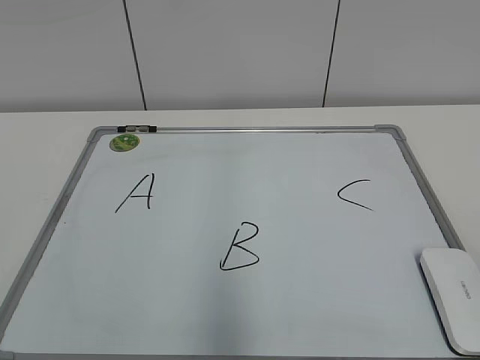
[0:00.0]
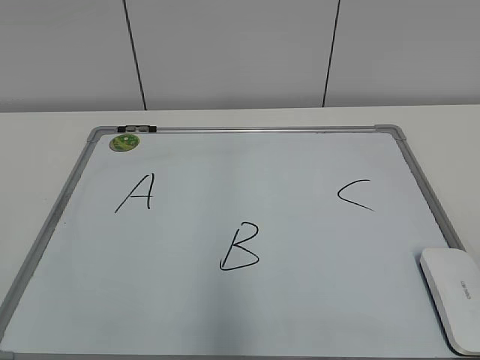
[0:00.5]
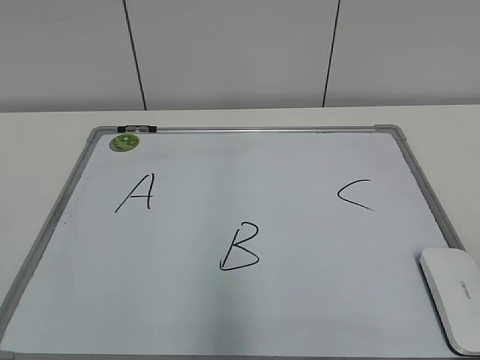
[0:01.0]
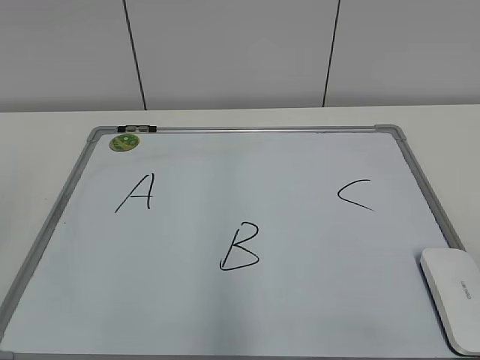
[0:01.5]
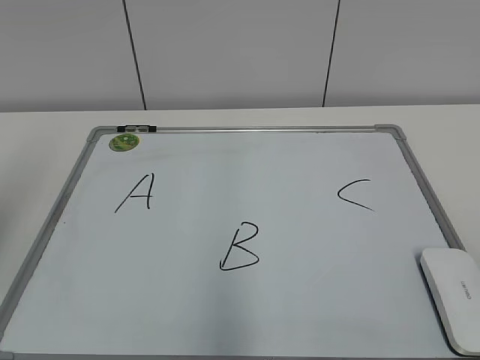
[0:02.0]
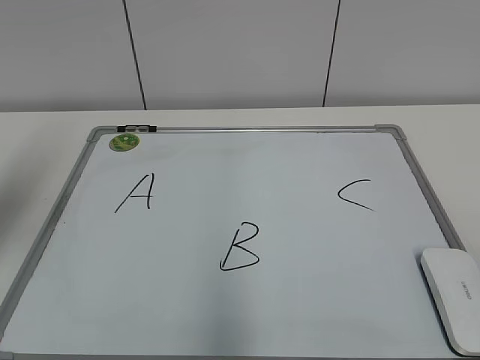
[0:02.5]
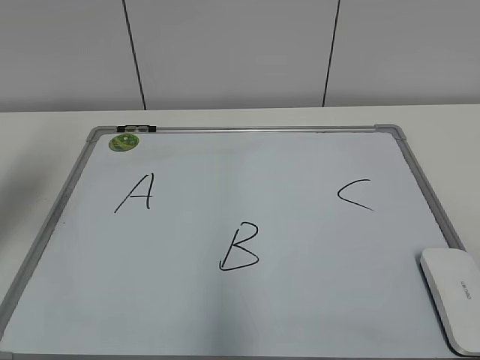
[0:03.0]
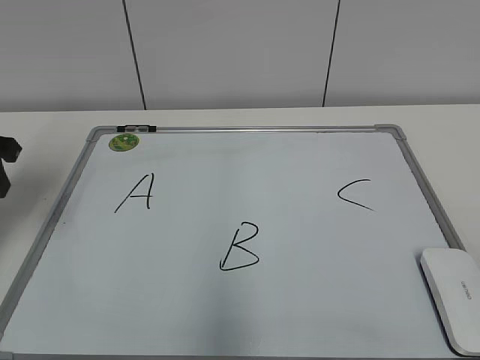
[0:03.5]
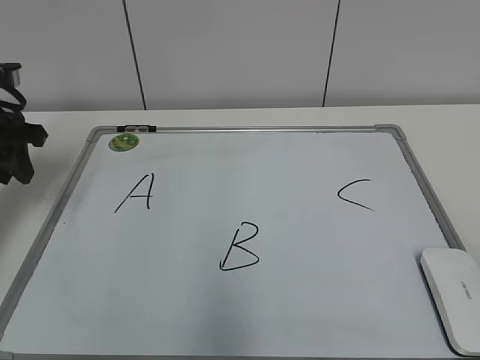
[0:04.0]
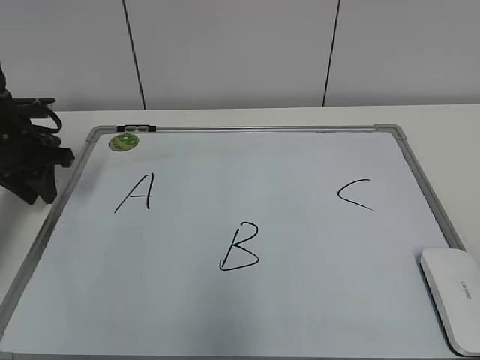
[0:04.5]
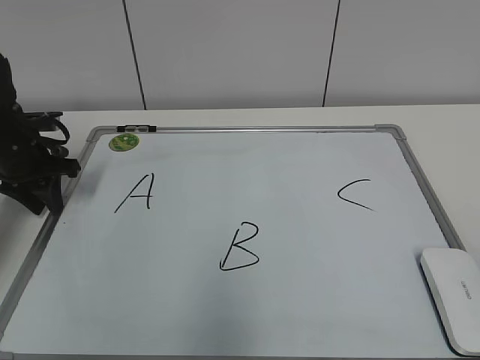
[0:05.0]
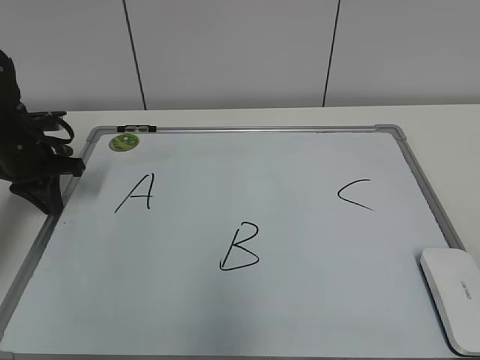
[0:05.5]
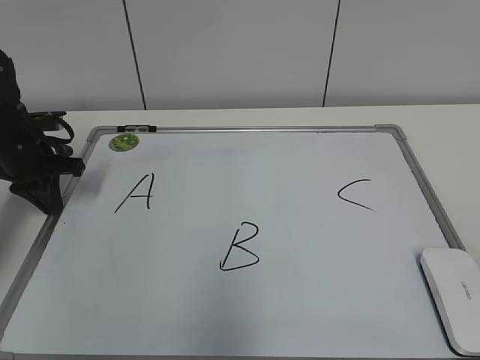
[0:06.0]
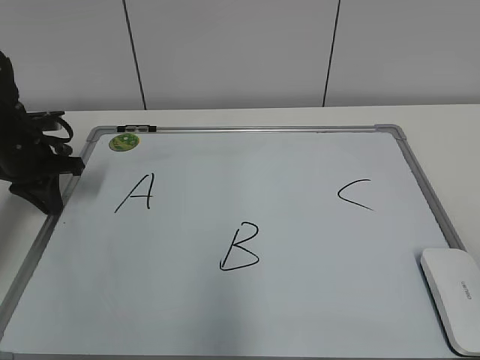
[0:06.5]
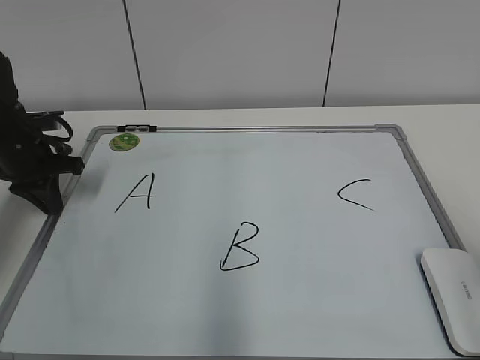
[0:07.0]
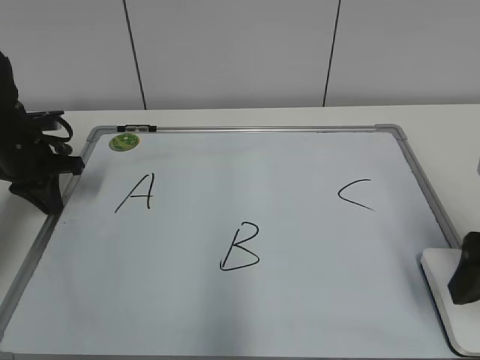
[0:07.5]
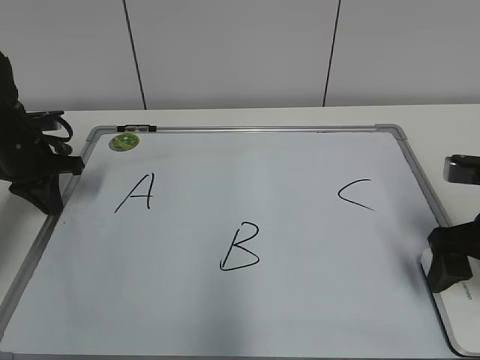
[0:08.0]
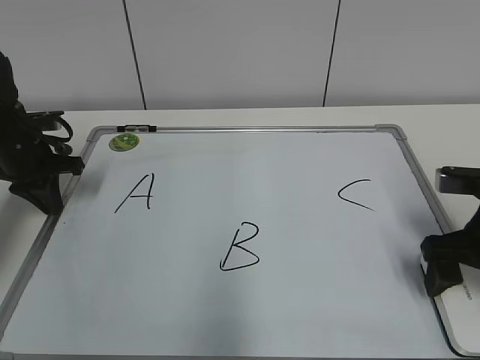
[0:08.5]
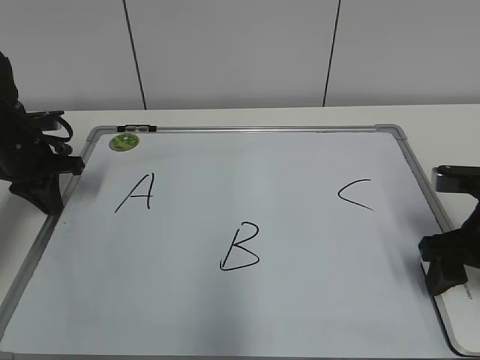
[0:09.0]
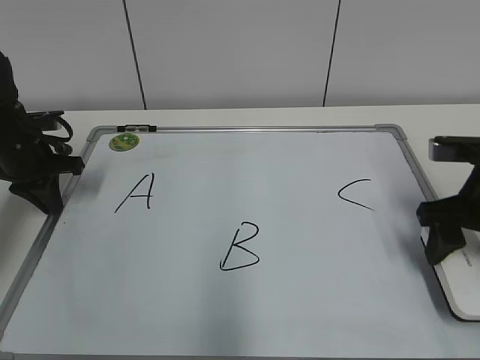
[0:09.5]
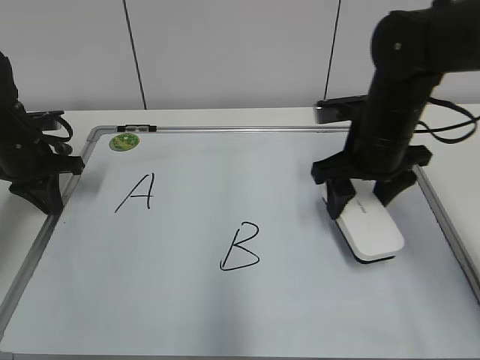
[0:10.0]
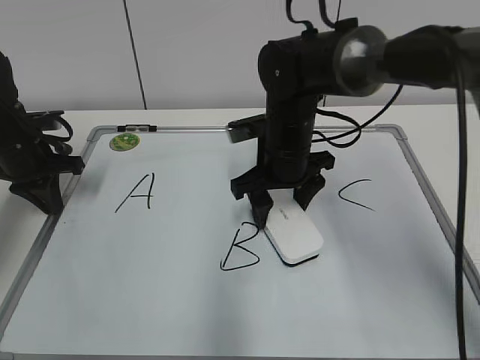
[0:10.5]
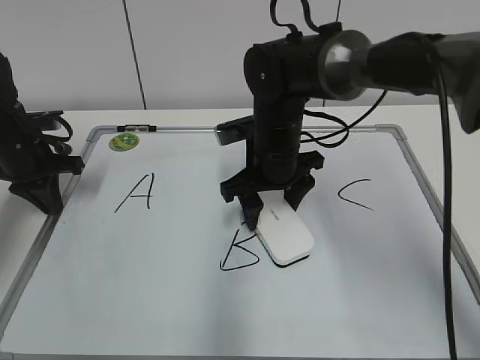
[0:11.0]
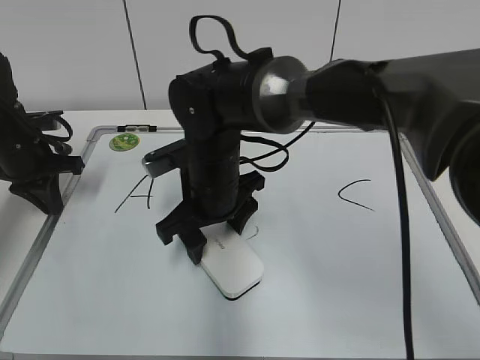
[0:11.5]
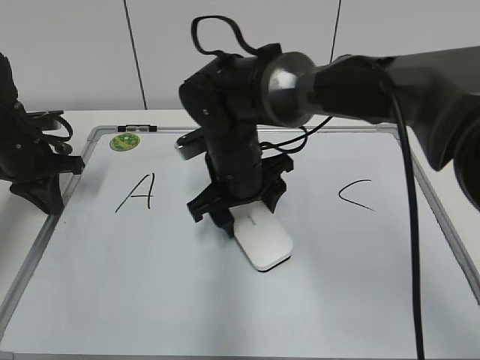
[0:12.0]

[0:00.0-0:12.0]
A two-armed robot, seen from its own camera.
Task of the whole recording: pick up the eraser on the blackboard and erase the letter "B".
Step, 0:00.0 to 0:06.0: Hold the drawing board steady with your left hand.
Step, 0:06.5 to 0:08.5: Grab the eraser with your right hand.
0:02.0 to 0:04.0: The left gripper travels forward and downward by about 25 cm.
0:04.0 to 0:06.0: The left gripper is displaced downward by some 10 cm, and closes up.
0:06.0 to 0:08.0: The right gripper heads forward, covering some 25 cm, and opens up.
0:08.0 to 0:10.0: The right gripper is displaced forward and to the left by approximately 15 cm, and closes up.
0:10.0 to 0:12.0: The right gripper moves to the left, about 15 cm.

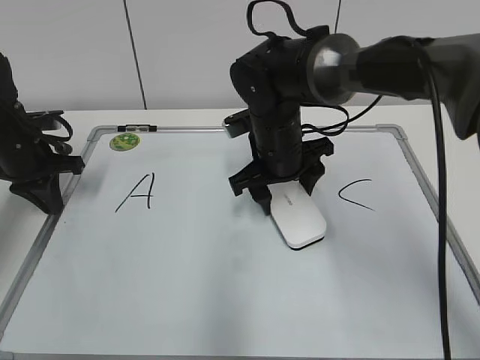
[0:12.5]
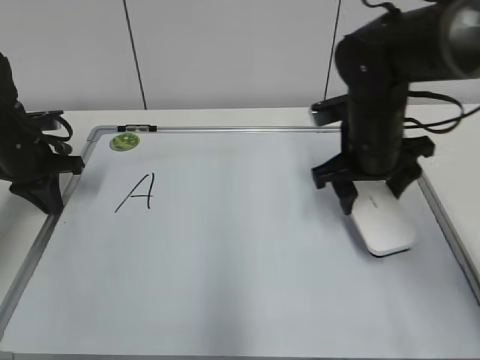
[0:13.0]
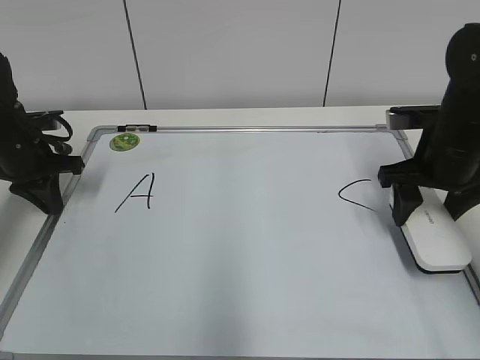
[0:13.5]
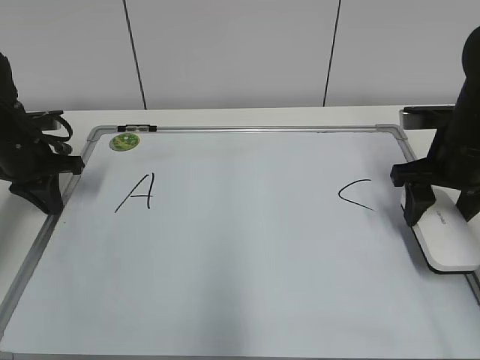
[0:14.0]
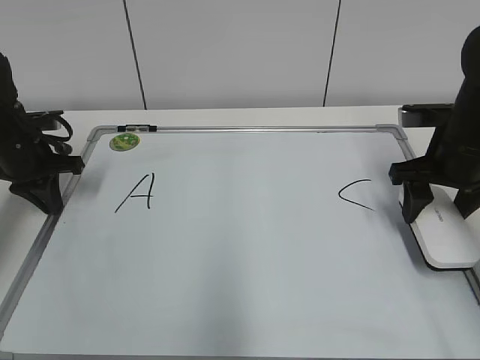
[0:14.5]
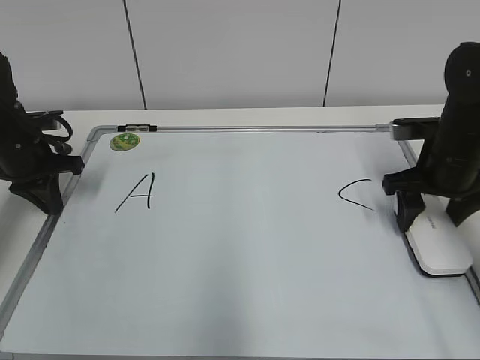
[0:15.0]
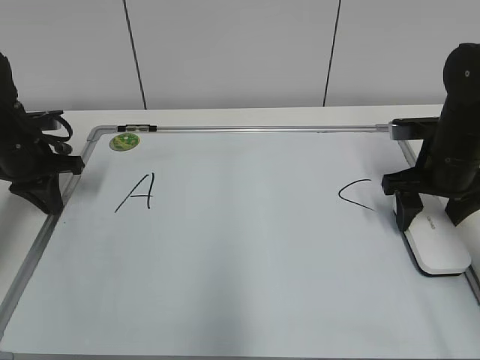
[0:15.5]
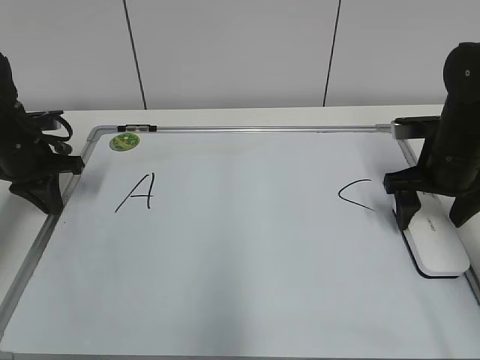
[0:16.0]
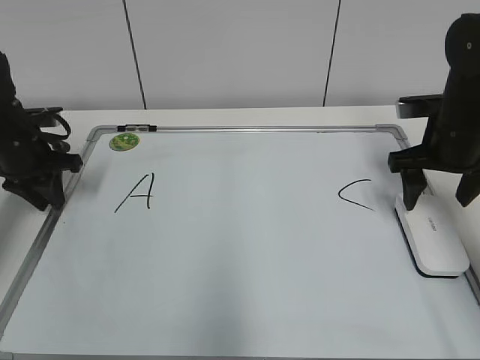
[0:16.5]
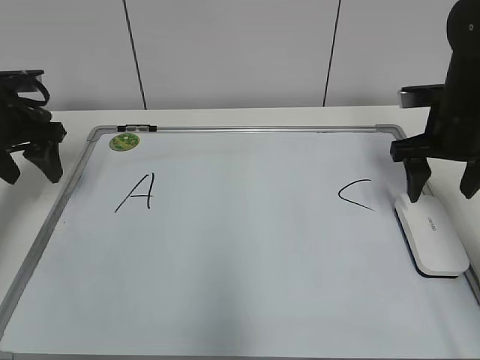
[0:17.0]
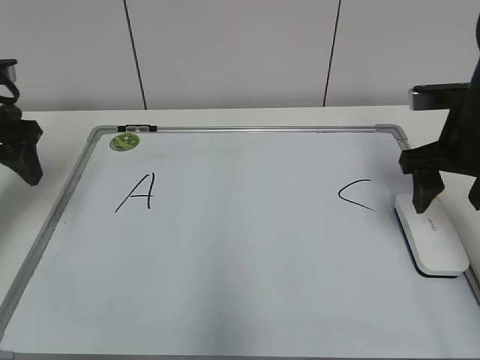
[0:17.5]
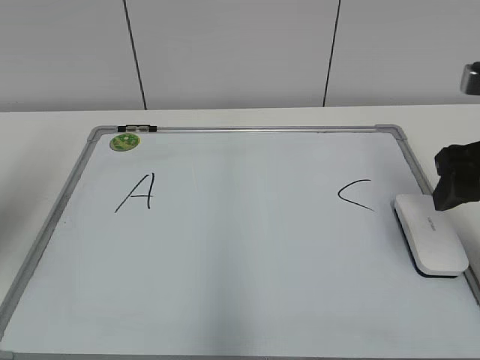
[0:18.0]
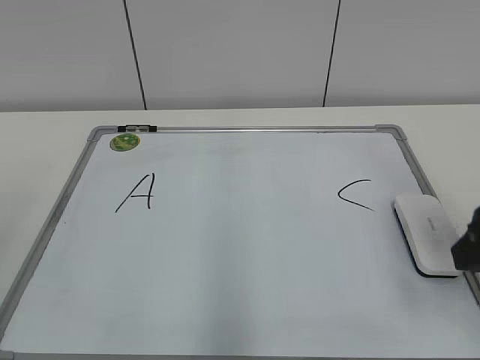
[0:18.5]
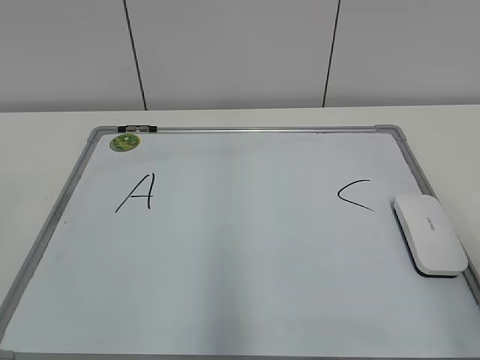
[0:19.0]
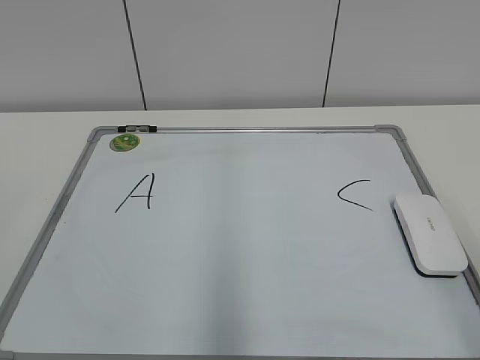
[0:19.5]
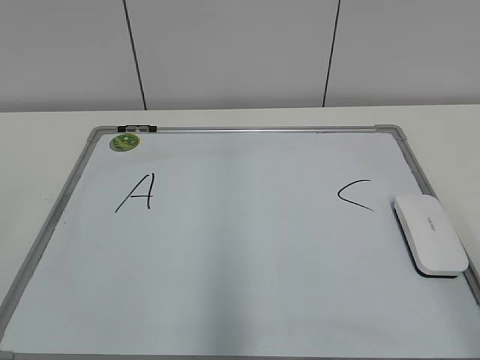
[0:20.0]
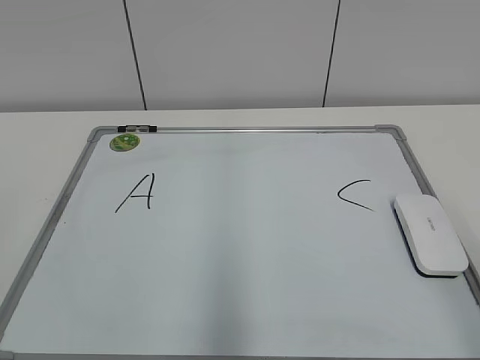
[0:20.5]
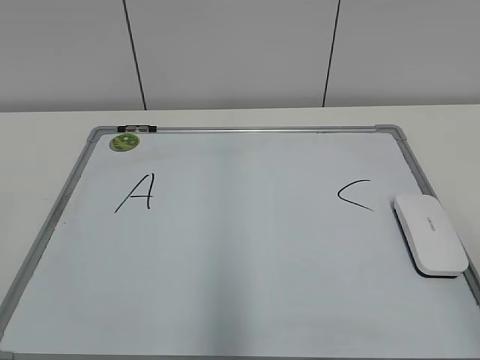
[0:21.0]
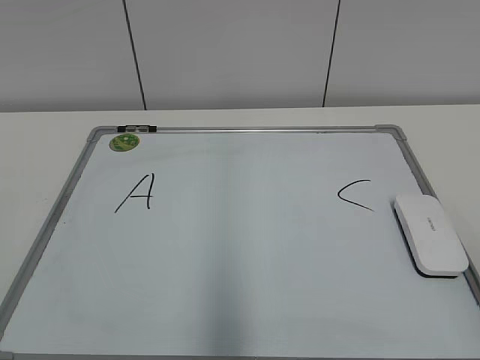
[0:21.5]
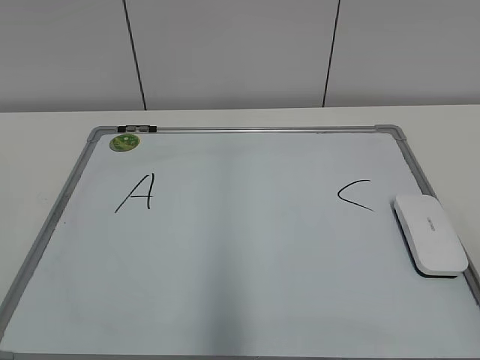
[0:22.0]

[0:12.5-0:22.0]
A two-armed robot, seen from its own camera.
Task of the whole recording: pick up the eraser on the blackboard and erase the letter "B".
Step, 0:12.5 to 0:16.0: Put down the eraser with your right hand.
0:12.5 to 0:14.5: The right gripper is displaced to the right by about 20 cm.
0:14.5 to 0:16.5: The right gripper opens.
0:16.5 to 0:18.0: The right gripper is displaced backward and upward by about 15 cm; the left gripper is displaced backward and upward by some 20 cm, and opens.
0:18.0 to 0:20.0: Both grippers move backward, some 20 cm.
